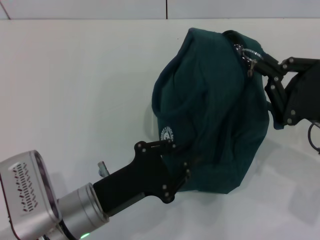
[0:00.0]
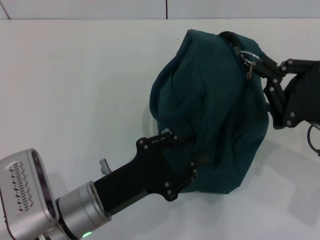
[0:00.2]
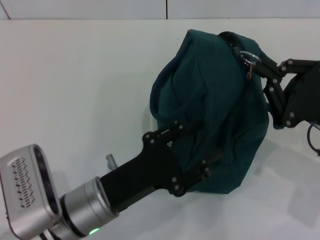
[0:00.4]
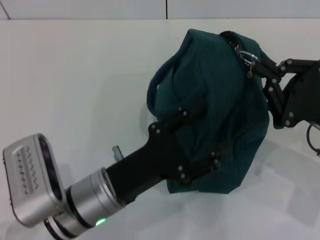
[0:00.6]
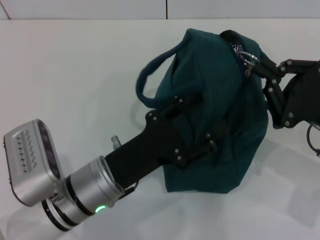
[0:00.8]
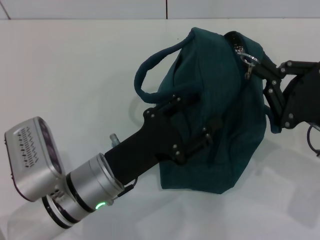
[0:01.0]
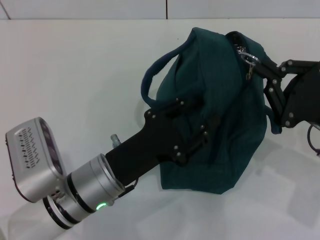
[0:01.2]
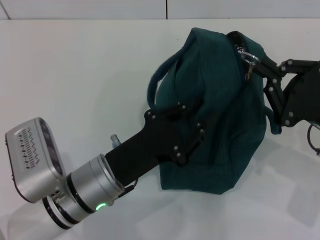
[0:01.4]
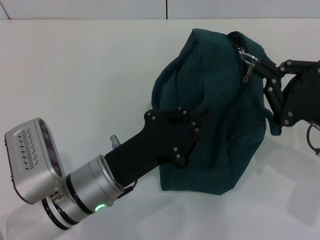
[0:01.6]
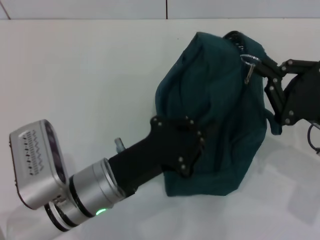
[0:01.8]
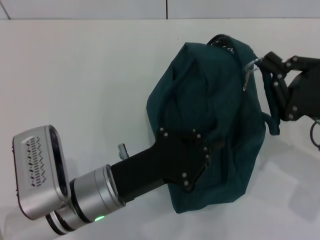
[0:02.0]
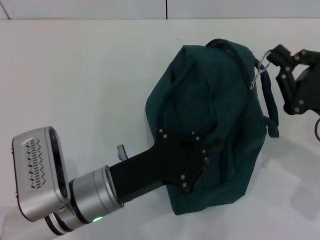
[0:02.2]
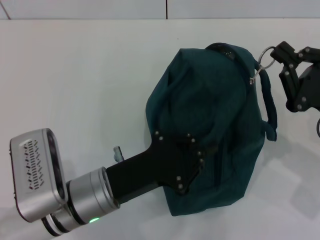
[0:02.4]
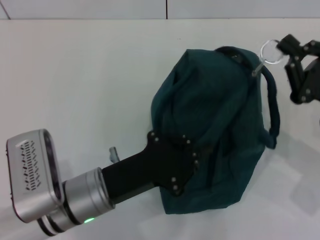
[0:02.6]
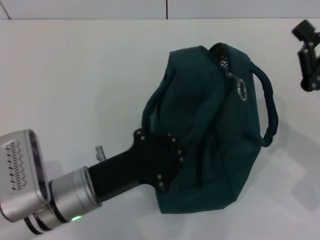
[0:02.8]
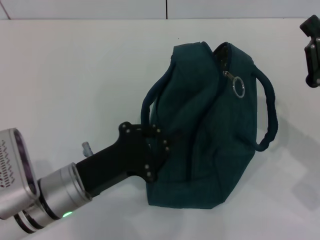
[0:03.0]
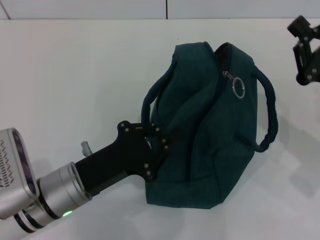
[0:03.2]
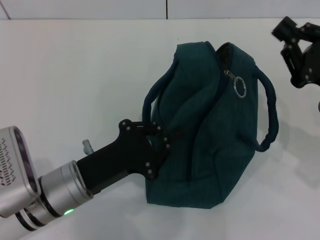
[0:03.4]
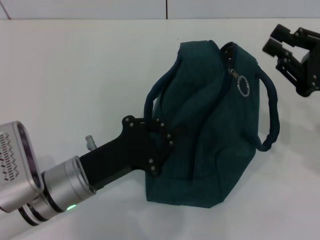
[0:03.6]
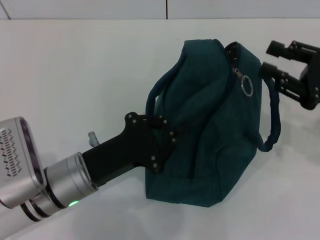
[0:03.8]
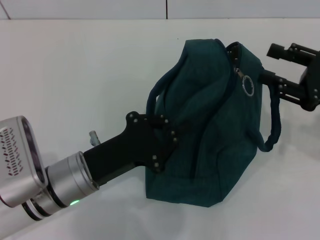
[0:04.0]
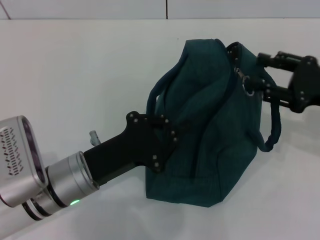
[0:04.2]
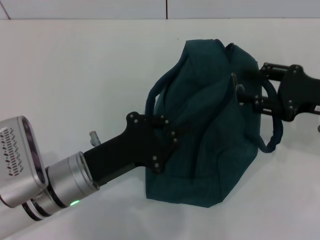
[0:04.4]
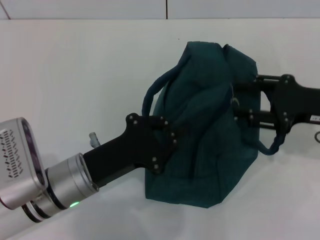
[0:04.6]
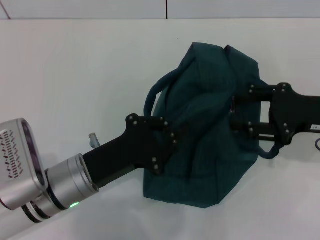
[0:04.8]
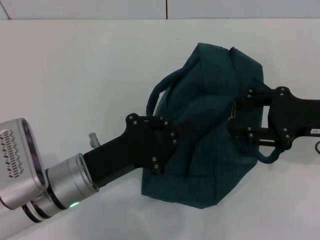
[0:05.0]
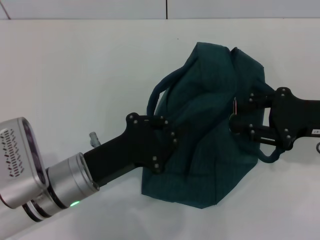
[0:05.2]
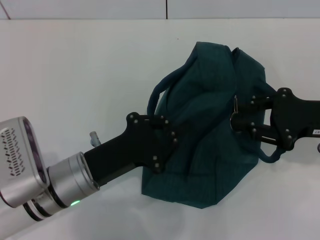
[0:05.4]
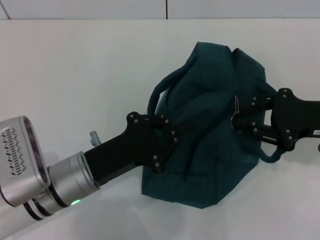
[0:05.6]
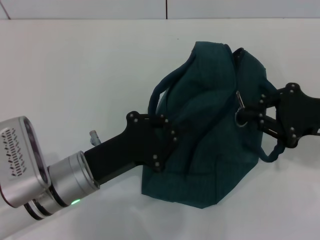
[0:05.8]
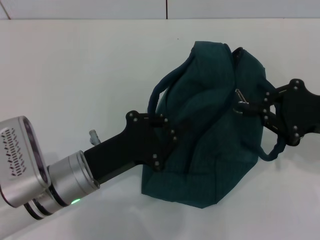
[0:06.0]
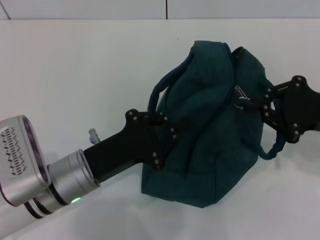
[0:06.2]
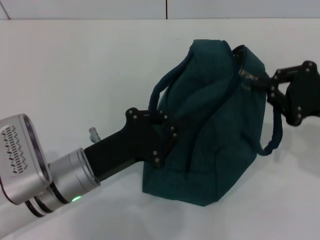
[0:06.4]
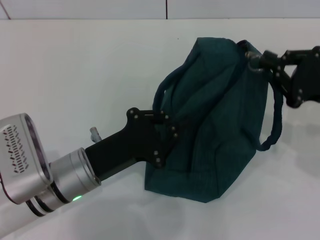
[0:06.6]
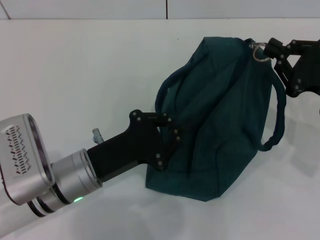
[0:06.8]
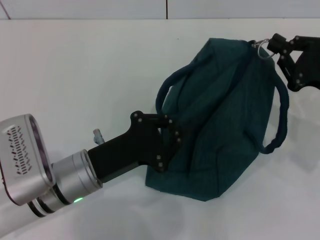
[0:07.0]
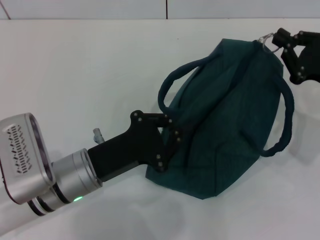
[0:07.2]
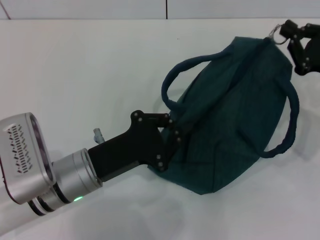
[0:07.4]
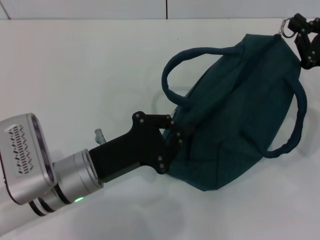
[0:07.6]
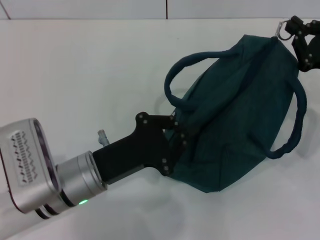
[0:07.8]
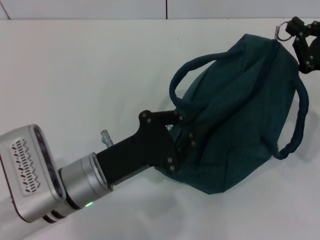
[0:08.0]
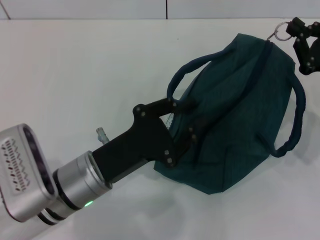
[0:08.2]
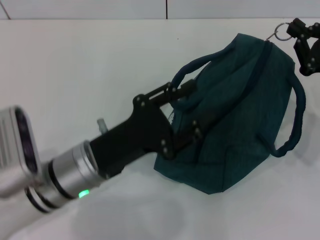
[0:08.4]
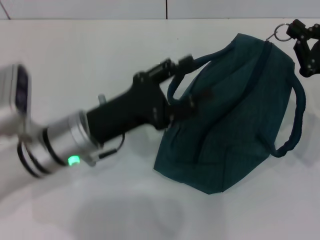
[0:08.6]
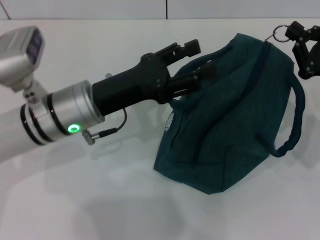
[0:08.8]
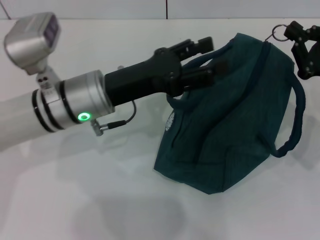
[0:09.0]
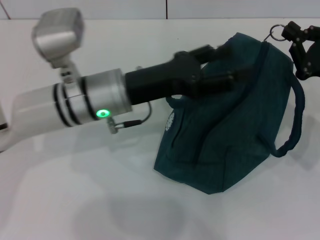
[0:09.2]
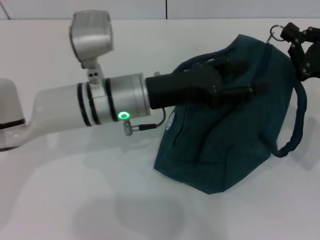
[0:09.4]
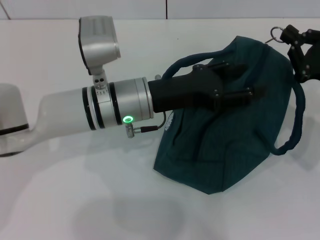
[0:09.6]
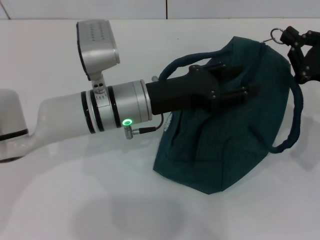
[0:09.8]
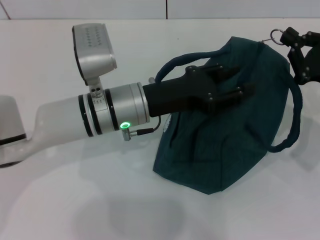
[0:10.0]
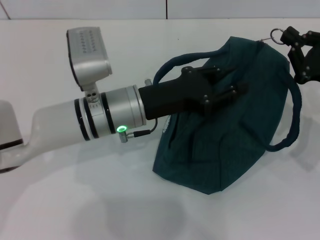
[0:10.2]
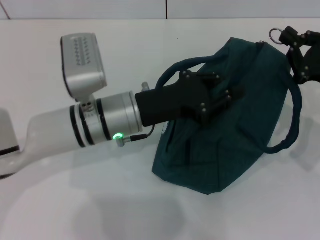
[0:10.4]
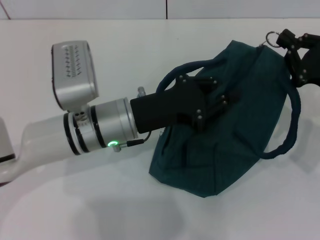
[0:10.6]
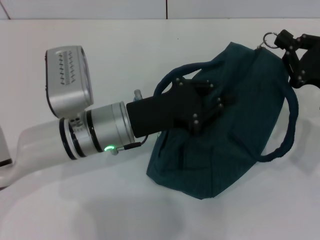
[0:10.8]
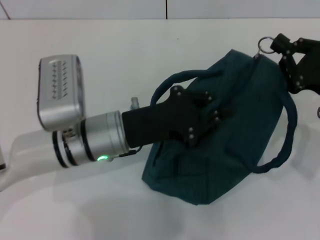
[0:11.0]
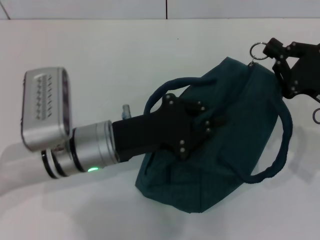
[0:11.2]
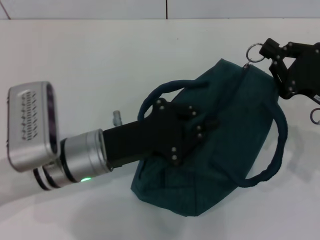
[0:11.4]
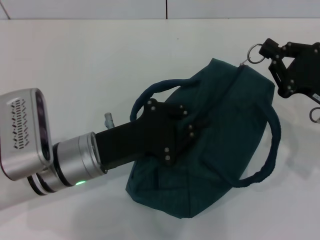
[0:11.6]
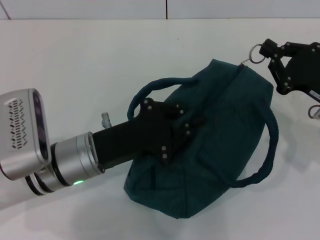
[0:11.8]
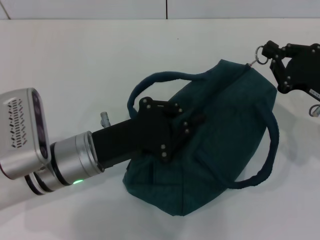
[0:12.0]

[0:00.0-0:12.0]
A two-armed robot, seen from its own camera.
0:00.0 to 0:01.6: The left gripper opens, then closes again.
0:03.0 to 0:04.4: The right gripper shifts by approximately 5 cm, and opens.
0:04.4 to 0:06.0: The right gripper closes its fingers.
0:07.6 to 0:09.0: The left gripper is displaced forward and upward by approximately 10 cm, and opens up.
0:09.0 to 0:10.4: The left gripper closes.
0:10.4 to 0:12.0: The left gripper is displaced backward and to the left by some 10 cm, and closes.

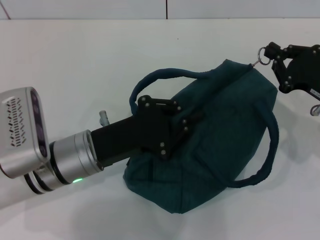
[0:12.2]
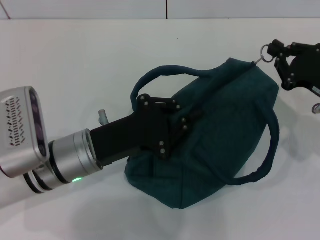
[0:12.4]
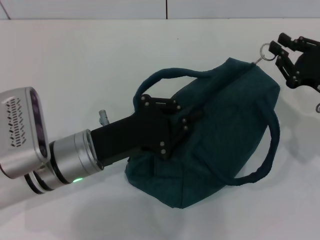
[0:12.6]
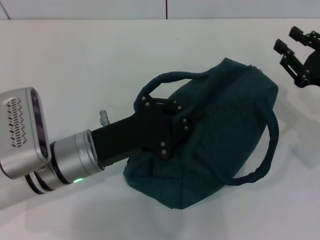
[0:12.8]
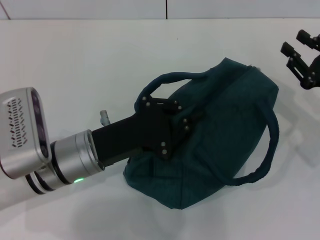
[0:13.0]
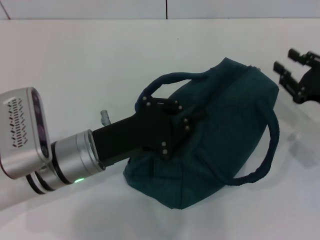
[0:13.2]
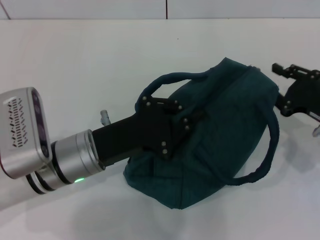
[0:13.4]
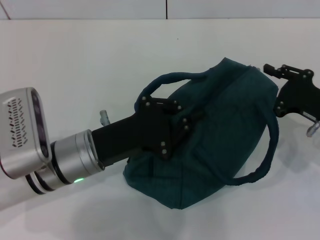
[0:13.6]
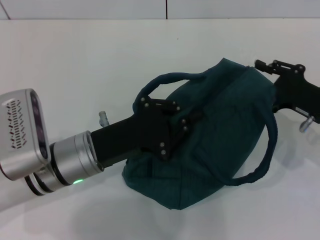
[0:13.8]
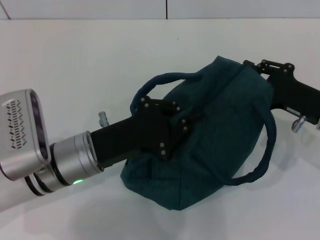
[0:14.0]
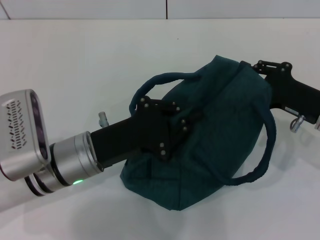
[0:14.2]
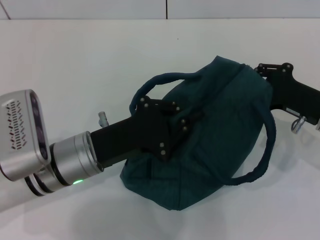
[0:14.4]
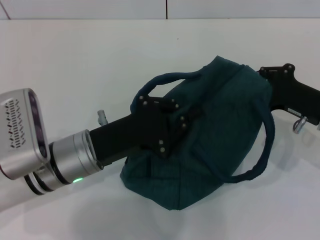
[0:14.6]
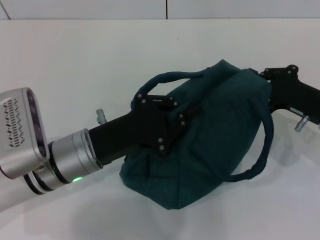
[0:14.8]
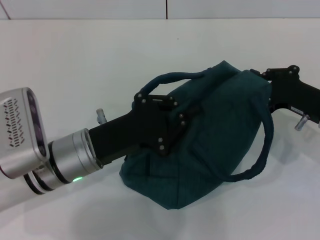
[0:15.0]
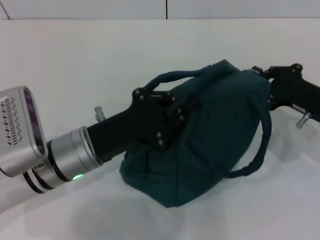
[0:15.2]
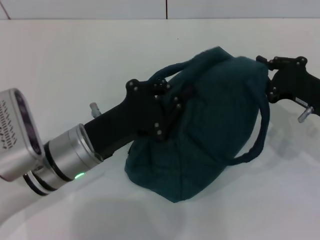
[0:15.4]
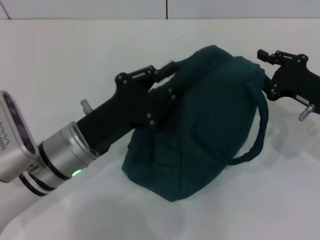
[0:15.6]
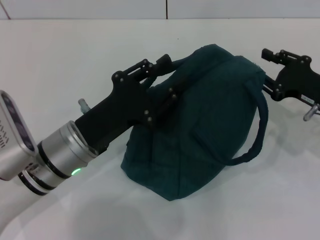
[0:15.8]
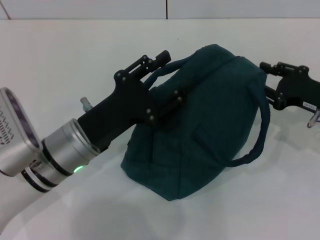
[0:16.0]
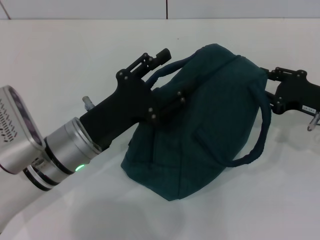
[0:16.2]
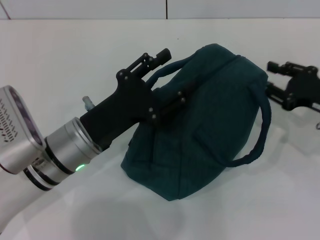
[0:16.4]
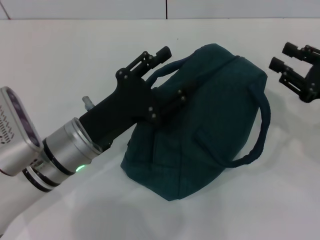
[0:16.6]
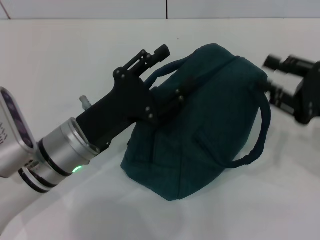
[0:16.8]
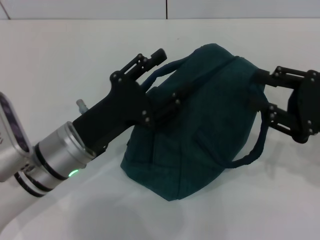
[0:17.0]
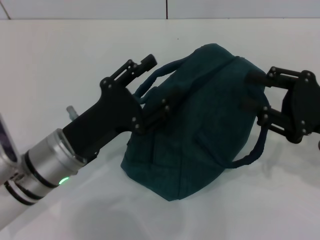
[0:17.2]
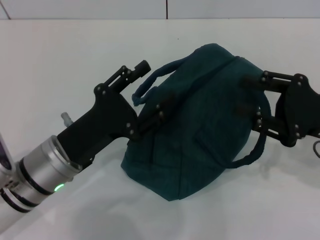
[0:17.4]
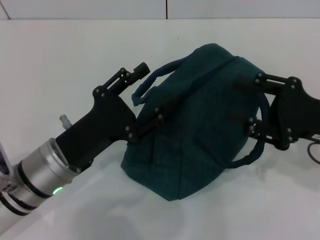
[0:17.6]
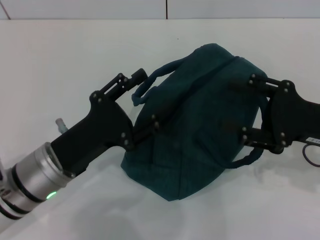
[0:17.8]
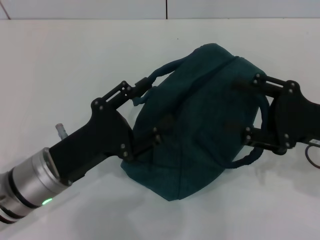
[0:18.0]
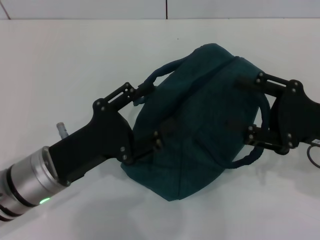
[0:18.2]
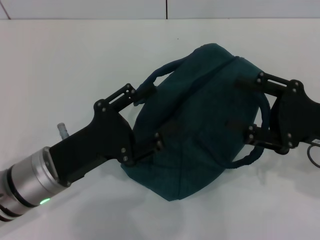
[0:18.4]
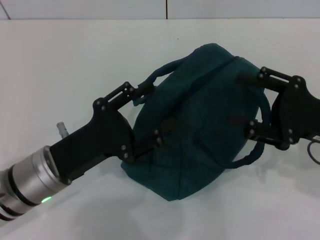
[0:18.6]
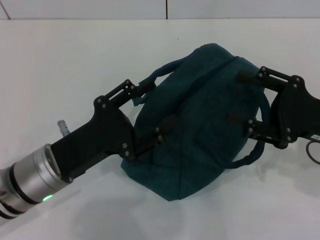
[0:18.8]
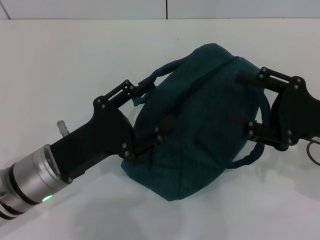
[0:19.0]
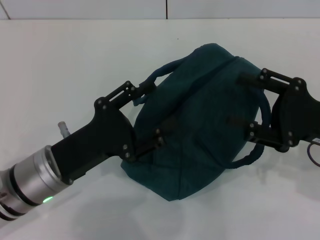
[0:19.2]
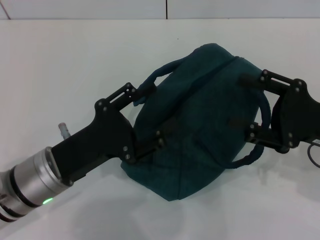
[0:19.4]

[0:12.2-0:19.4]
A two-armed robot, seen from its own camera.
Step, 0:12.2 to 0:15.4: Zip up the lunch bag with your right hand.
Step, 0:15.6 to 0:16.8: Hold the lunch bag with your left hand.
0:12.2 to 0:13.6: The right gripper opens.
0:13.6 to 0:15.0: The right gripper closes its fingers.
0:15.0 to 0:16.6: The left gripper opens, while the right gripper ends up roughly 5 cm from where it was, and opens up.
0:16.6 to 0:18.0: The right gripper shifts approximately 5 cm to the left. The left gripper ends up some 5 cm from where it was.
0:18.0 to 0:19.4: Both grippers stay put.
